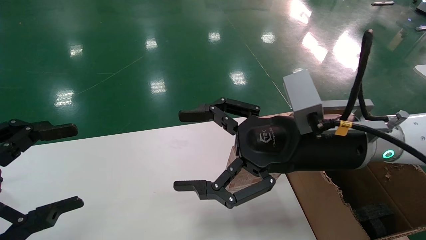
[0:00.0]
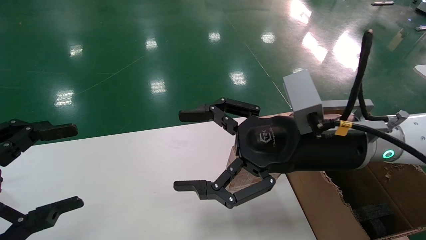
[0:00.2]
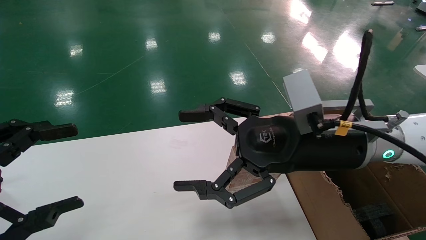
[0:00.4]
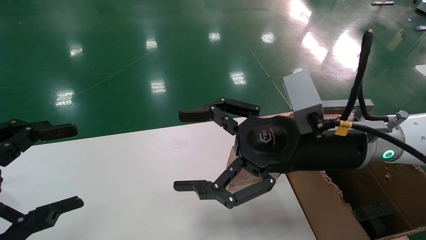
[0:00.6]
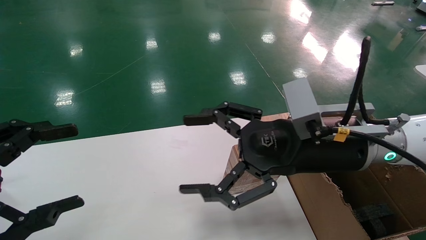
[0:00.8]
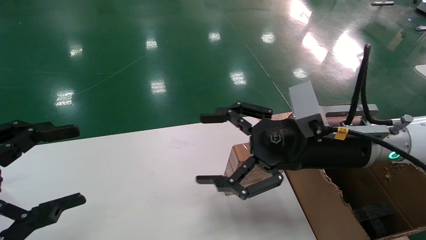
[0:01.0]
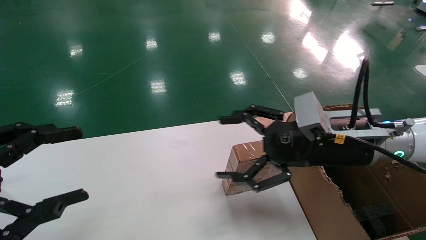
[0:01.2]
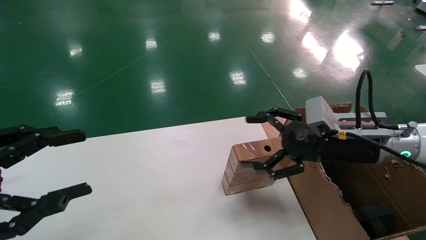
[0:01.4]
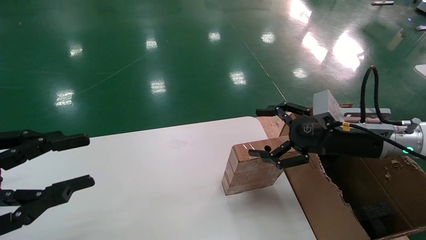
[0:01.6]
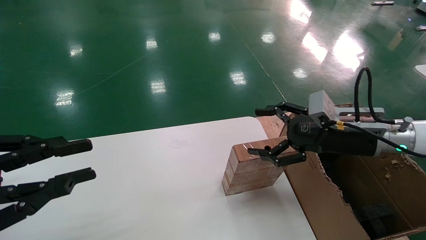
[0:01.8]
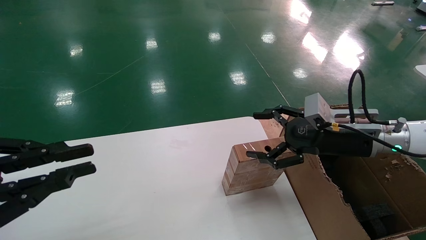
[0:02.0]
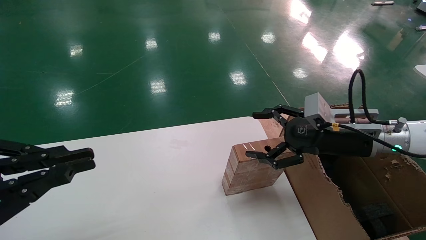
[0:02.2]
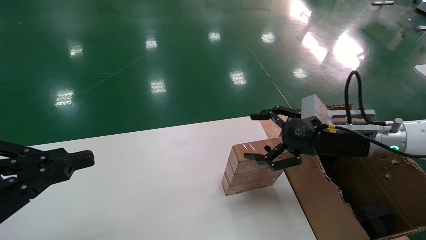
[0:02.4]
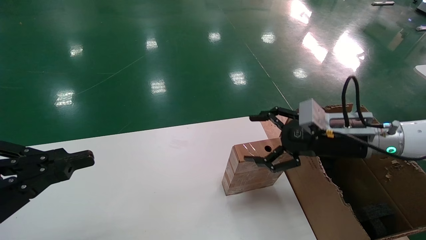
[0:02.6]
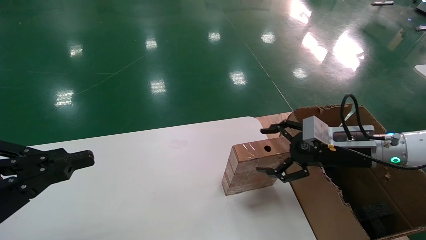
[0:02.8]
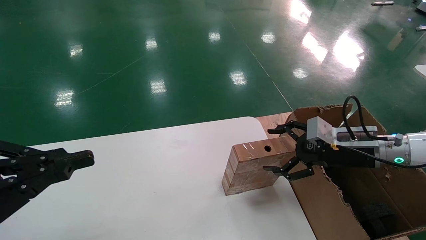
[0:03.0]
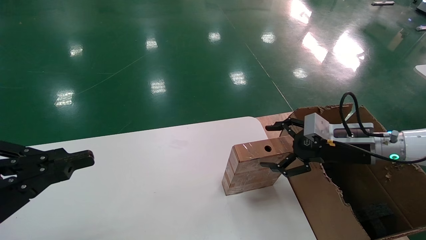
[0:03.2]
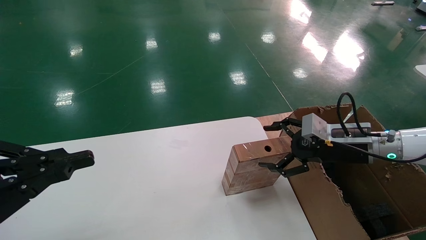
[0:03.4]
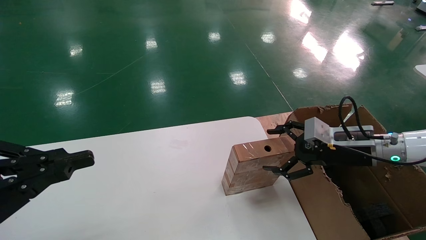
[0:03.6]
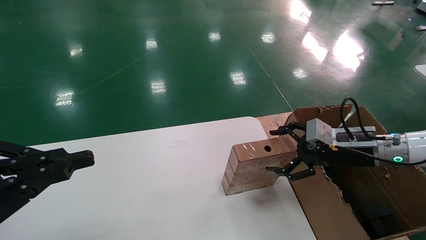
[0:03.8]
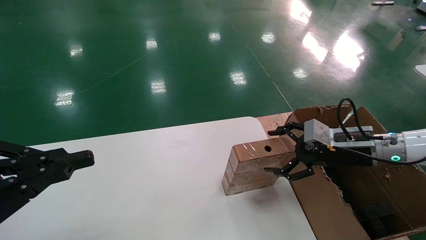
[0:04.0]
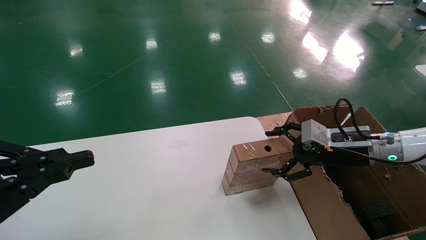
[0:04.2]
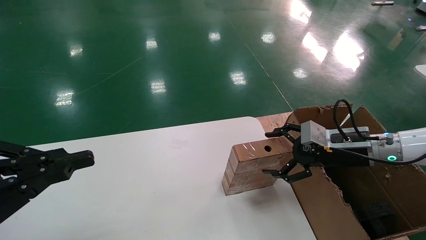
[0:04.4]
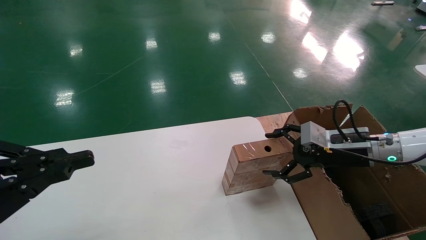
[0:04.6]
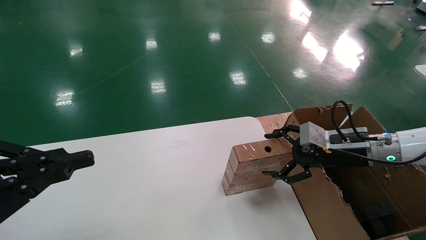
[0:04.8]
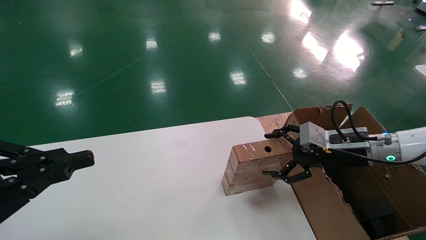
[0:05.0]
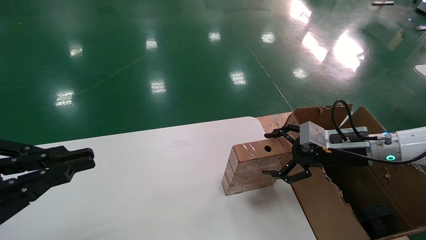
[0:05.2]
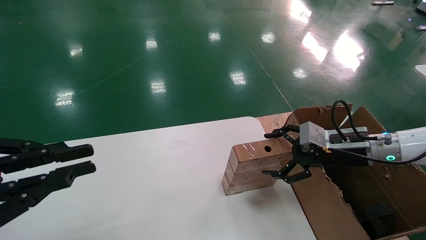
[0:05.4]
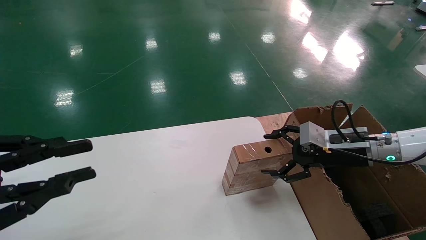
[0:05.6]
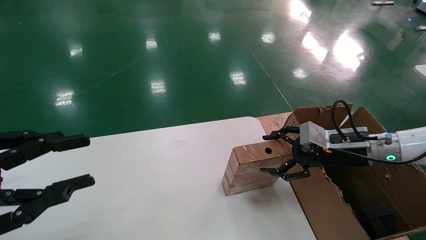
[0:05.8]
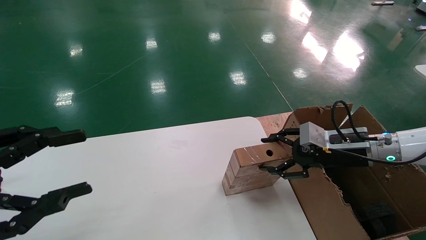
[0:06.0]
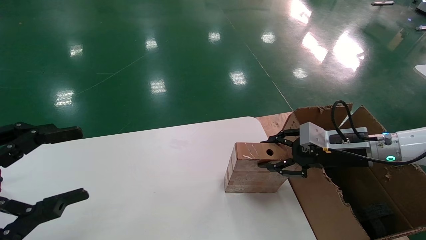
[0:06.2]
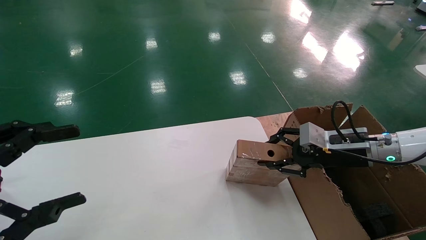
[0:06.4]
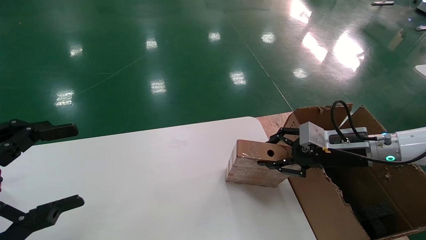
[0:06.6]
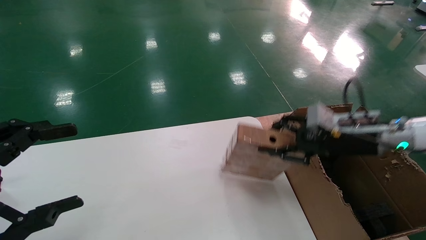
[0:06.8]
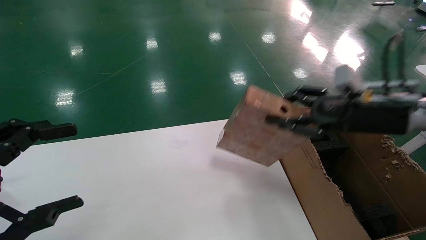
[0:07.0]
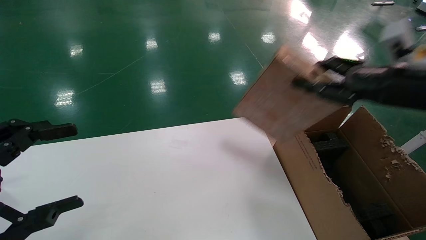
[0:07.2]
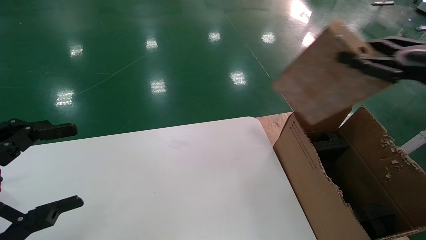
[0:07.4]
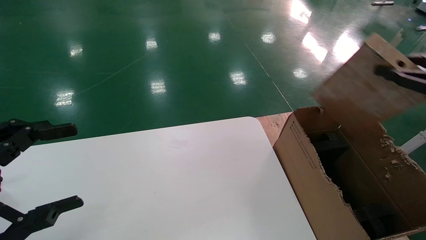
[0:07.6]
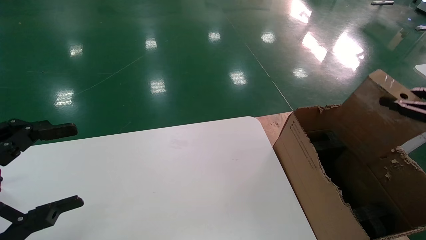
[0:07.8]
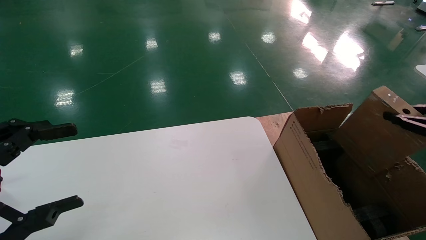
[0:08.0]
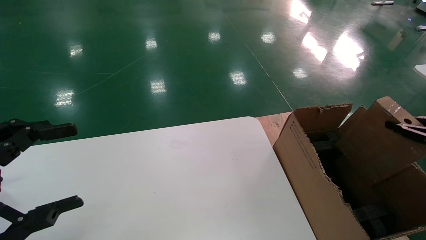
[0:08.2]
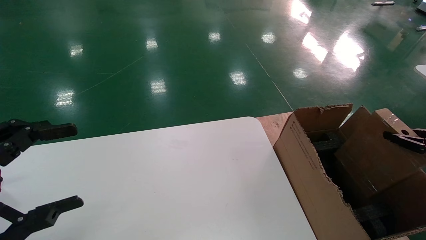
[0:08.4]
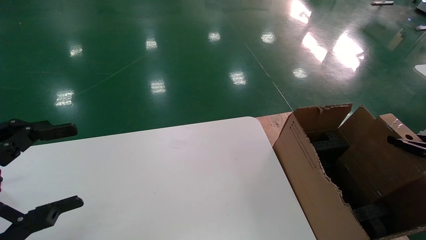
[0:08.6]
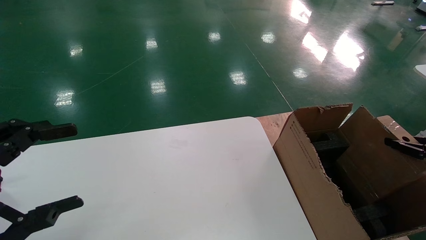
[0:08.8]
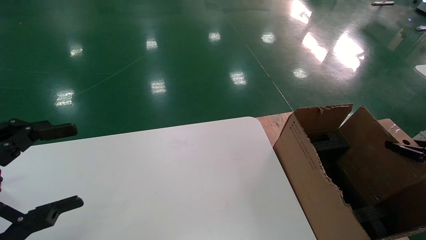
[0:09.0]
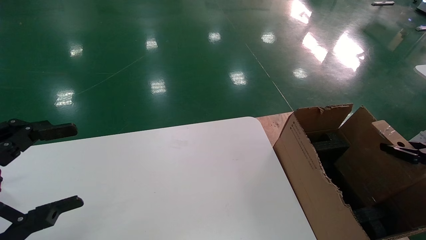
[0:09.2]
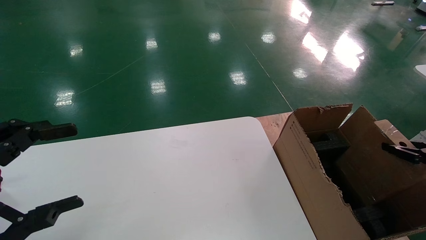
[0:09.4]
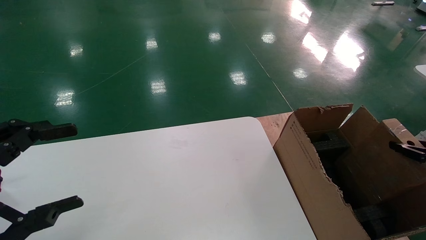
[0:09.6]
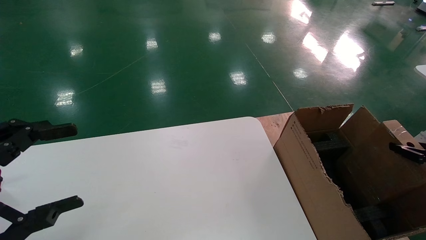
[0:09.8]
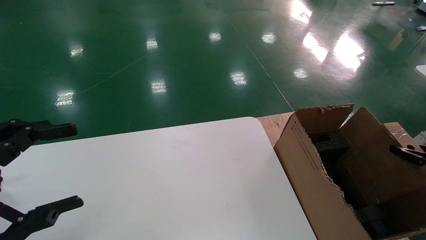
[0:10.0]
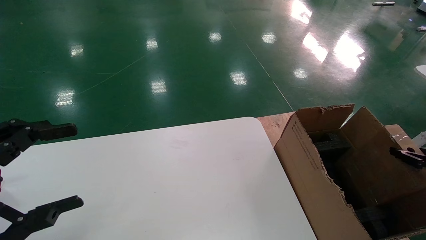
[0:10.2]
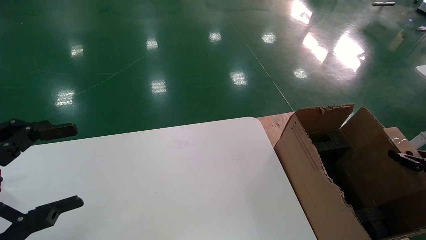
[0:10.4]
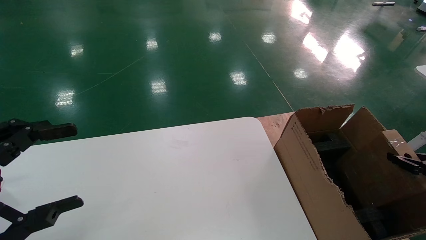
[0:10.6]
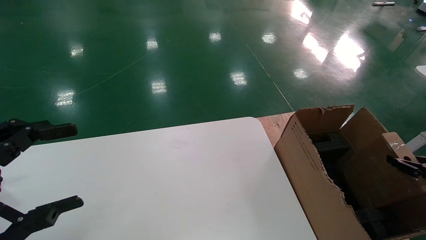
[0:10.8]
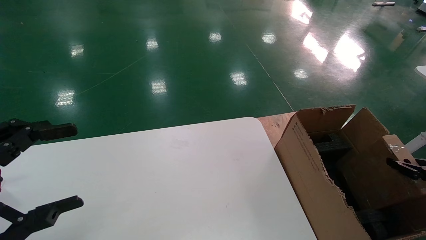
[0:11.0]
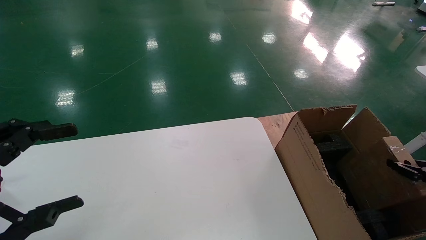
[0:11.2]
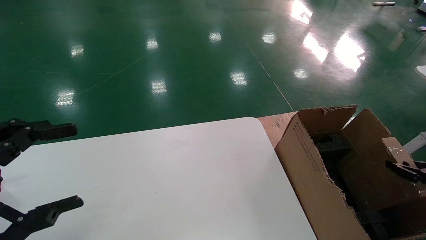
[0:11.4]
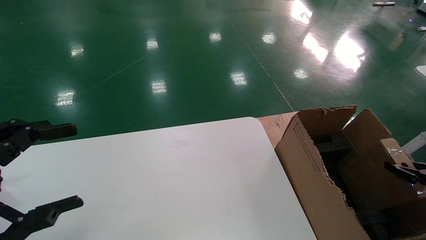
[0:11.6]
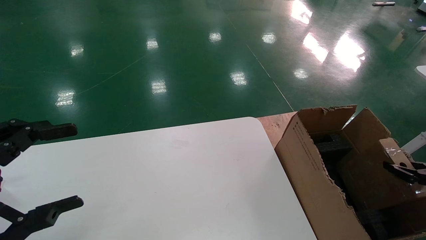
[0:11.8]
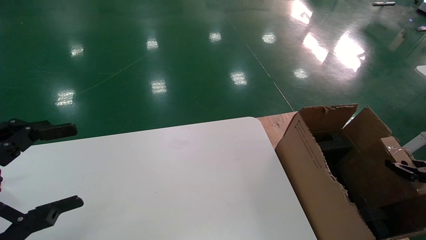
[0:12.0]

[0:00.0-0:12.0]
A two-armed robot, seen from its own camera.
Task of the whole recording: put the box on the table into the big box.
Step, 0:01.2 to 0:06.4: Pick up the mouse and the power cord paper box.
0:00.0 to 0:01.6: The right gripper heads to the right and forward, covering some 15 cm; the left gripper closes.
0:01.6 to 0:03.0: The left gripper closes up, while the right gripper moves about 5 cm.
0:03.0 to 0:04.4: The two grippers keep their place.
0:04.4 to 0:06.0: The left gripper opens.
0:06.0 to 0:07.6: The left gripper opens up. Meanwhile the right gripper goes about 20 cm to the right, upward and backward, and closes.
0:07.6 to 0:09.0: The right gripper shifts approximately 15 cm downward and to the right.
0:09.0 to 0:10.4: The grippers stay close to where they were, moving slightly.
0:10.4 to 0:12.0: The grippers move only a little.

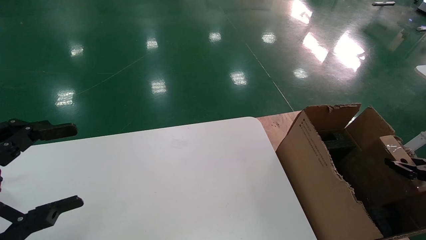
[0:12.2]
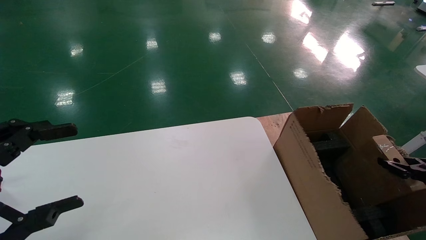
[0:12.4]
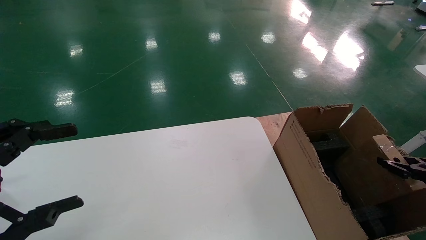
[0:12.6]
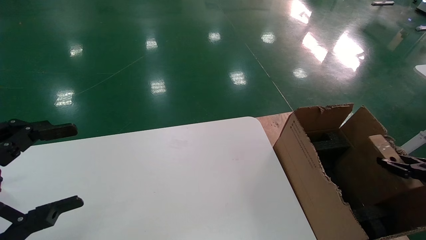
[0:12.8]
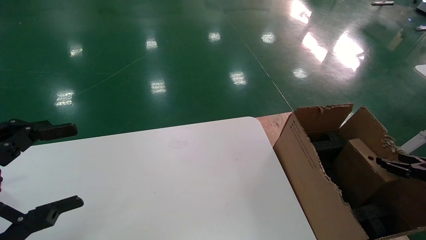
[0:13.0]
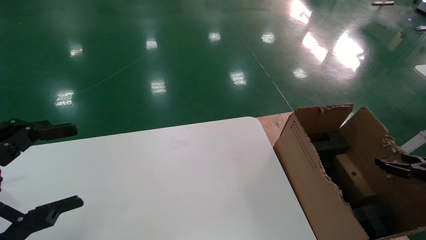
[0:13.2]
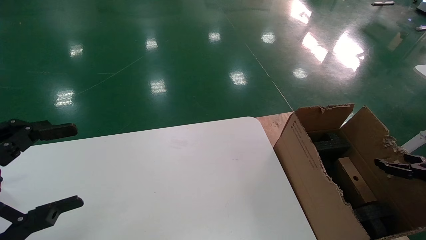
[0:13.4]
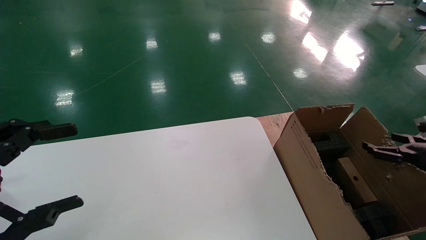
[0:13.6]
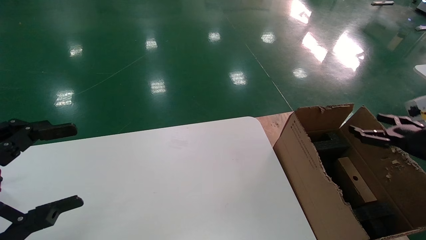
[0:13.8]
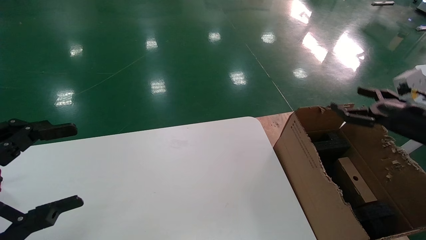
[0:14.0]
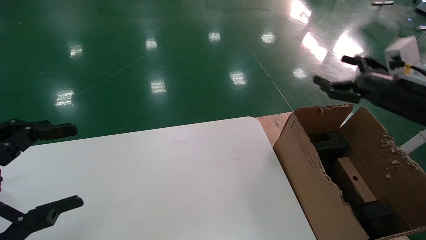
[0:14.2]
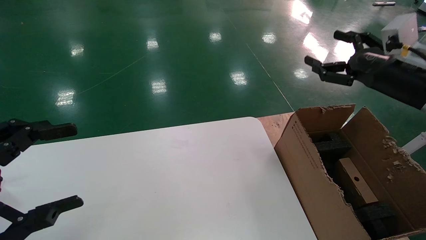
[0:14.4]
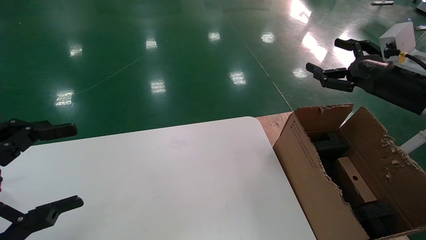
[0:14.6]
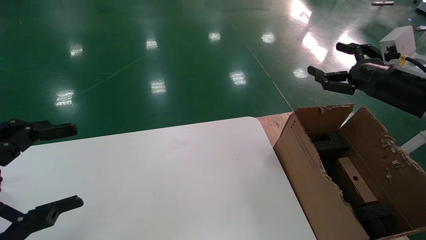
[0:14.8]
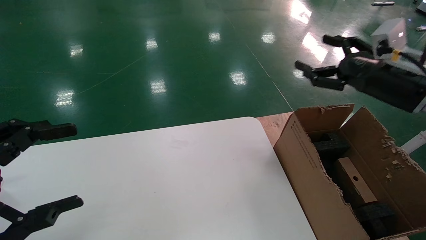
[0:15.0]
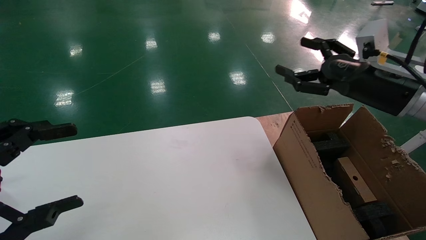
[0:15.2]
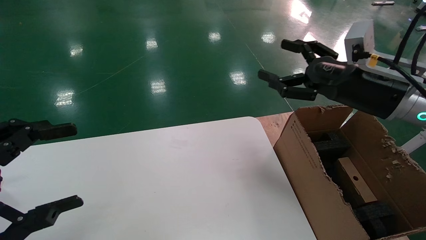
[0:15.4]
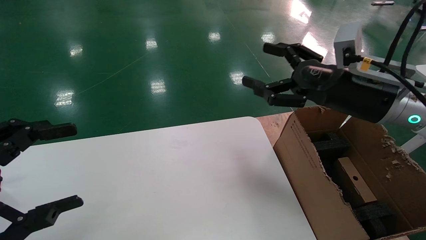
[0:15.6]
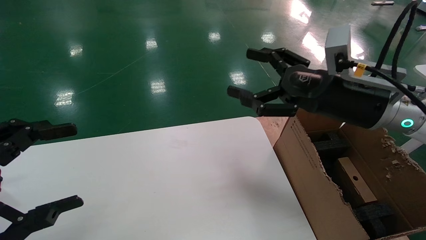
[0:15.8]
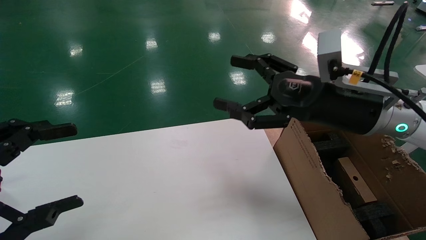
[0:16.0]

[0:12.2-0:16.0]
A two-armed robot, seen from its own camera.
Task of the whole recording: put the box on the table into the big box.
0:12.2 to 0:13.4: The right gripper opens up.
0:13.4 to 0:14.8: The right gripper travels upward and to the left by approximately 25 cm.
0:14.8 to 0:16.0: The right gripper goes approximately 15 cm to the left.
